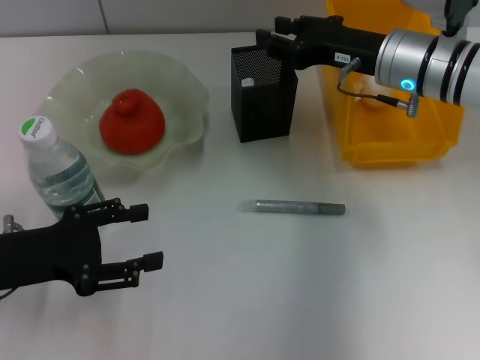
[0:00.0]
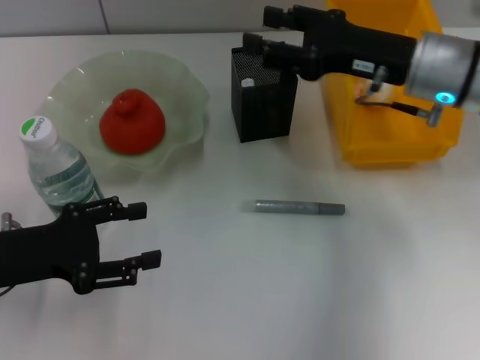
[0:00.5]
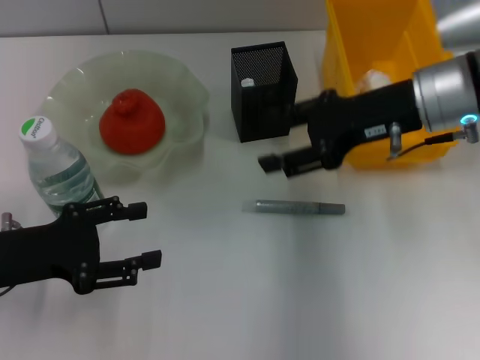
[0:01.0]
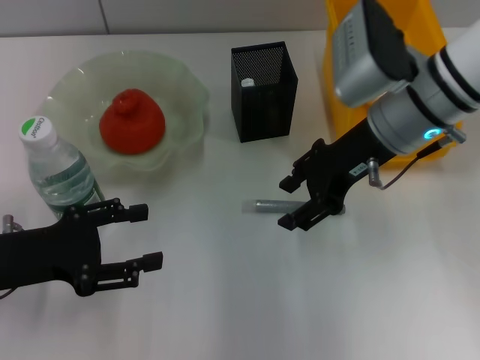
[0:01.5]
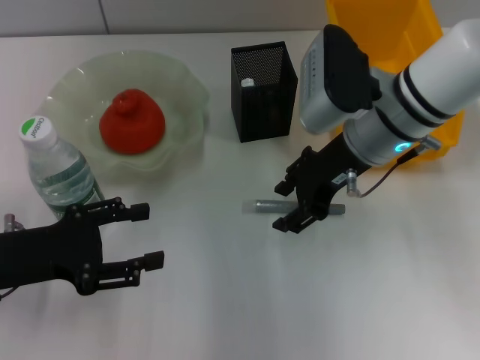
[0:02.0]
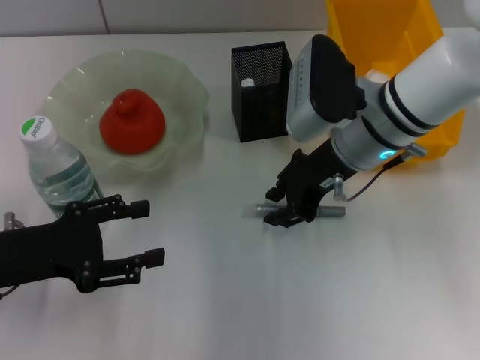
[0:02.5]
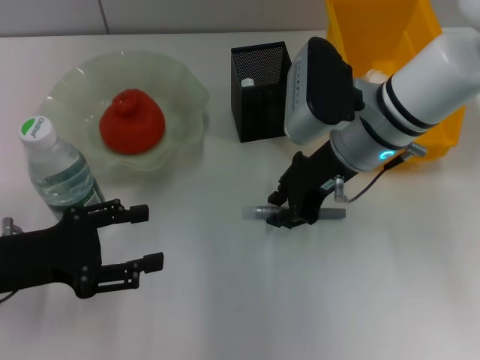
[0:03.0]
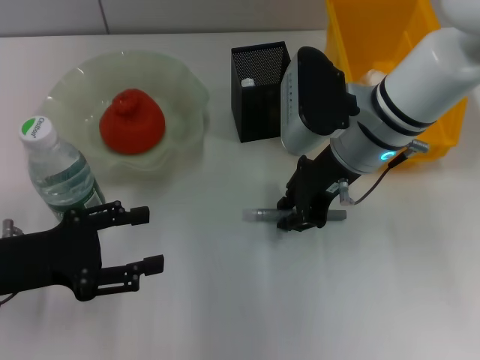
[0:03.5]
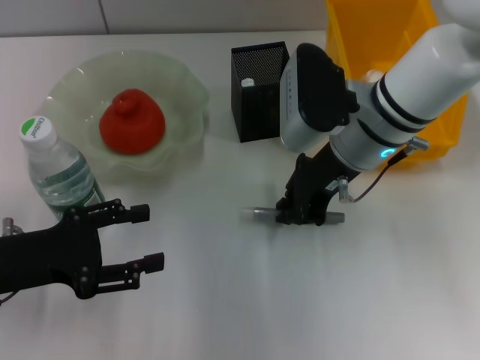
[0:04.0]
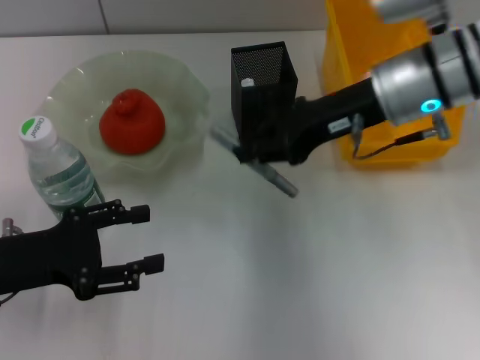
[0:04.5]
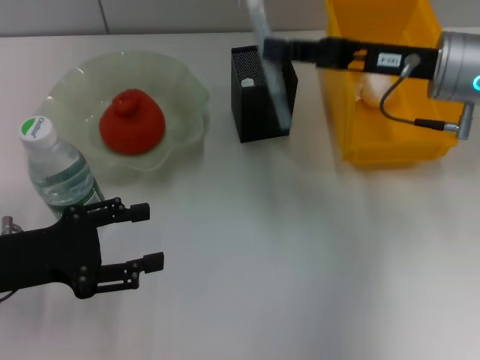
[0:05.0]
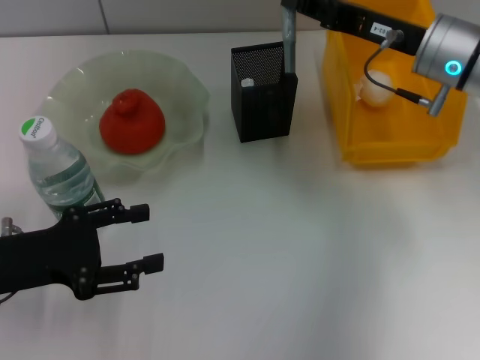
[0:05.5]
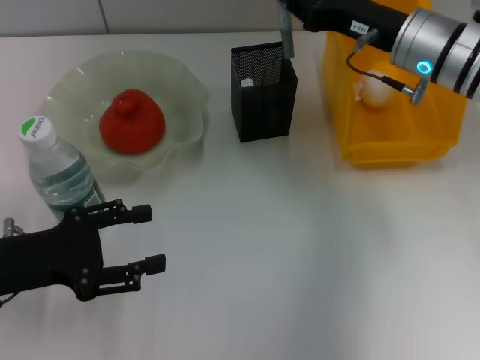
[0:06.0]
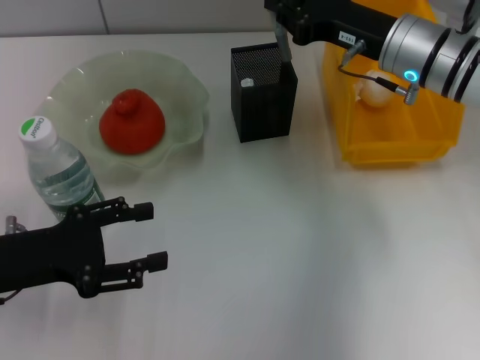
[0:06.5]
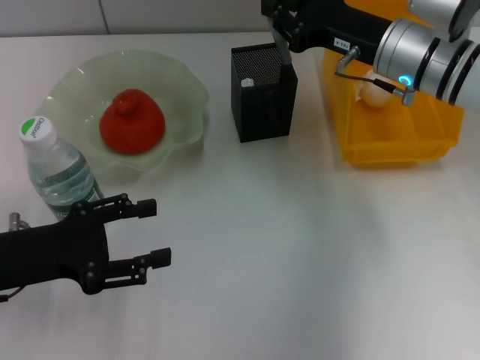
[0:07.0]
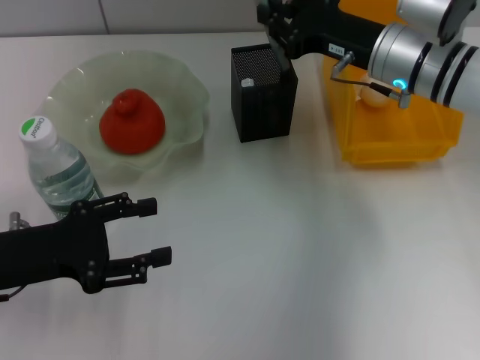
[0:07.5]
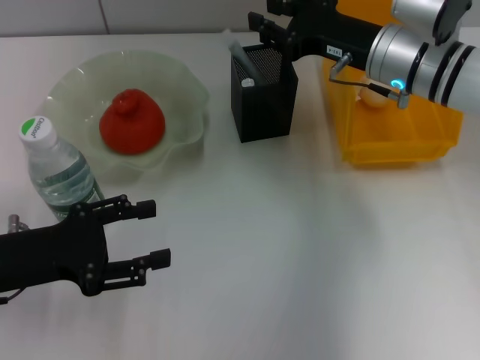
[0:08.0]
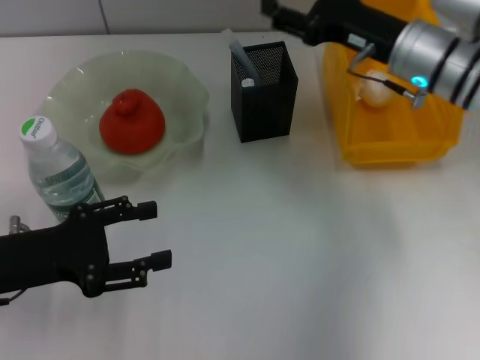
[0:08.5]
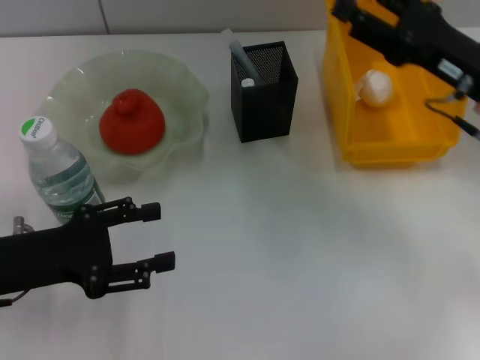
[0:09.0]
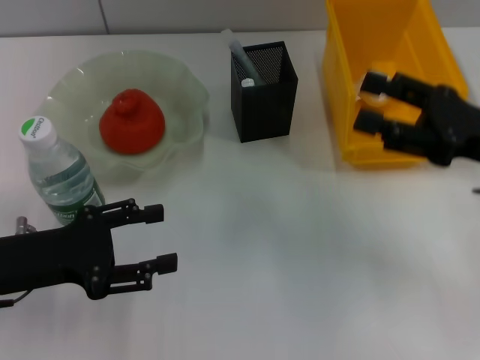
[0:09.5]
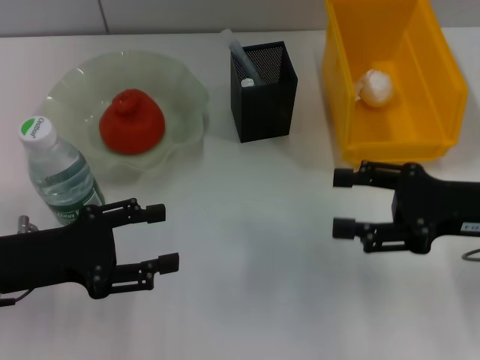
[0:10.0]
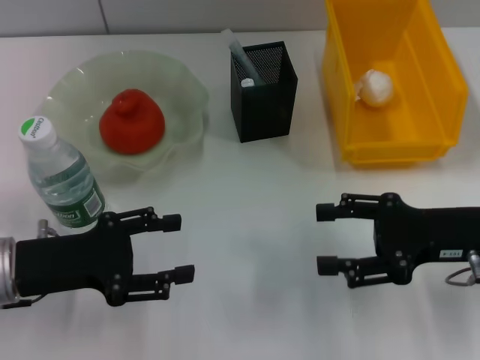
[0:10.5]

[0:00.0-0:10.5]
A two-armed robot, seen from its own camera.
Step, 0:00.5 to 0:03.5: Grab the gray glue with the right hand.
Step, 0:04.0 to 0:08.0: Place the gray glue into the pen holder with the right hand.
0:00.0 to 0:02.0: The right gripper goes some 5 cm to the left, and opens.
0:02.0 to 0:04.0: The right gripper closes its fingers.
0:04.0 to 0:06.5: The right gripper moves to the right, about 5 cm.
0:06.5 to 0:08.5: The right gripper opens.
0:08.5 to 0:10.5: The right gripper travels backward and to the right by some 15 cm.

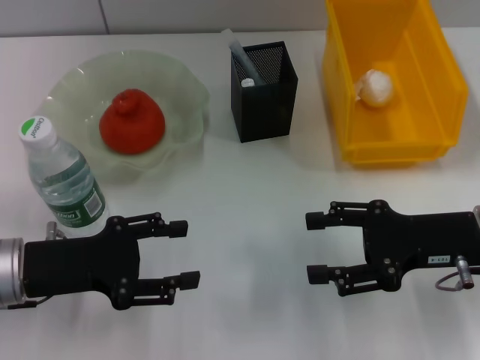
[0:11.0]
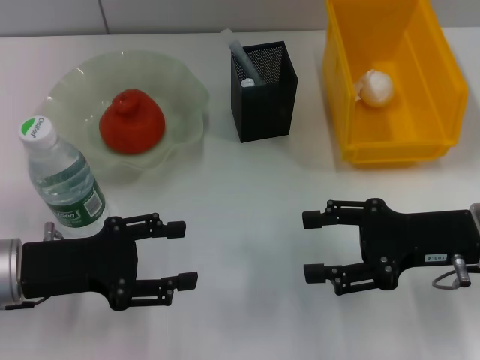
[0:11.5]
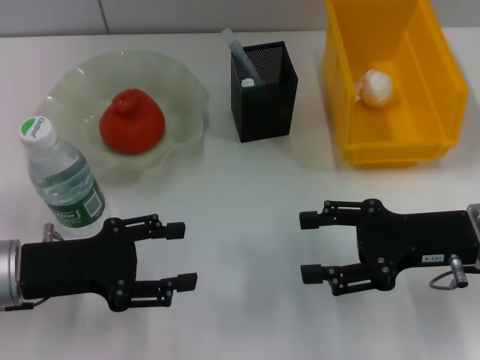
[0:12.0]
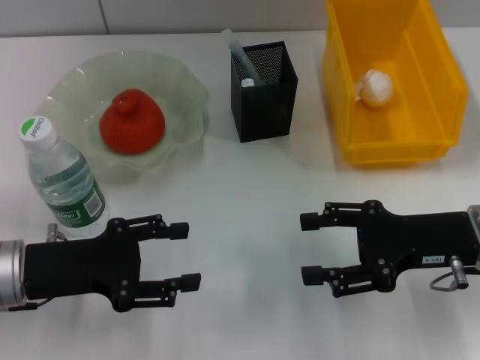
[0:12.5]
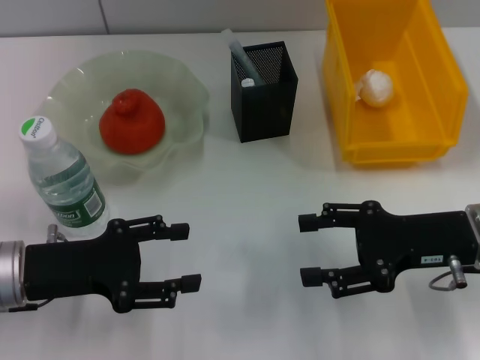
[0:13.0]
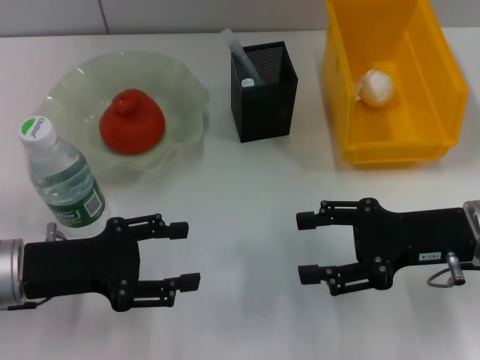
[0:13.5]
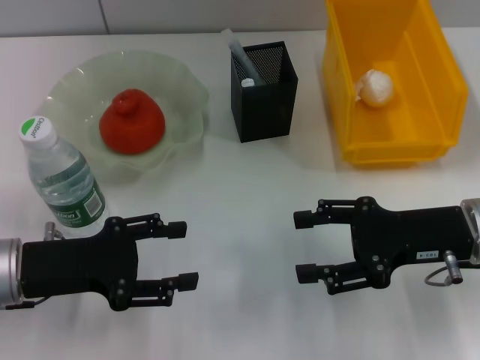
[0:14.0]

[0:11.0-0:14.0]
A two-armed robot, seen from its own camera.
0:11.0 to 0:14.0: Both grippers stay about where they are.
